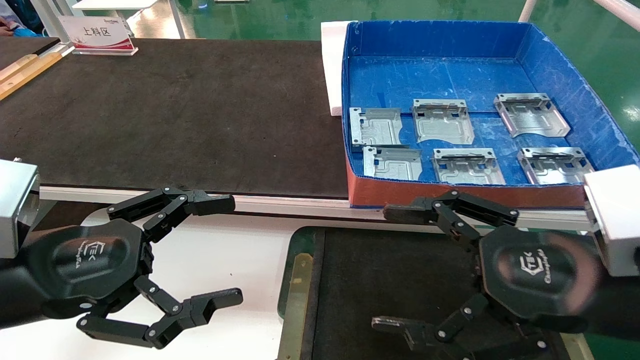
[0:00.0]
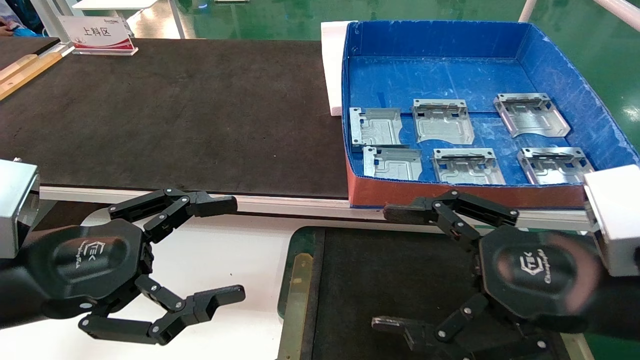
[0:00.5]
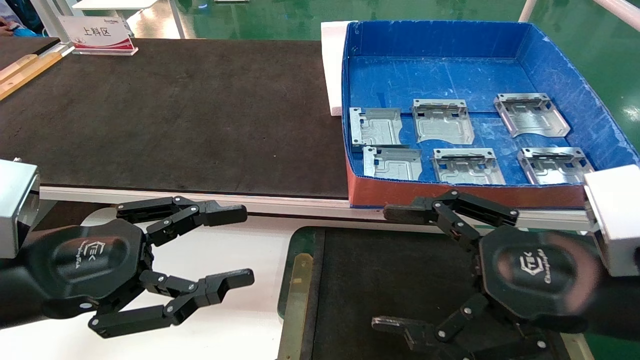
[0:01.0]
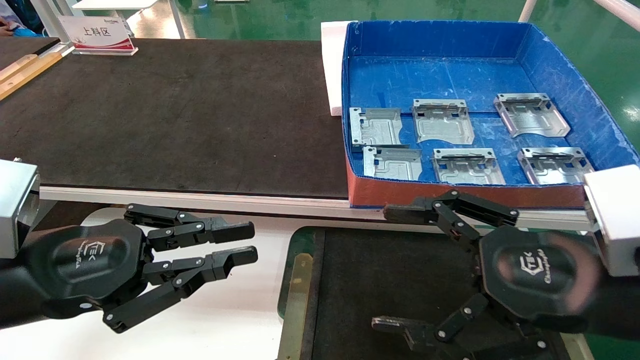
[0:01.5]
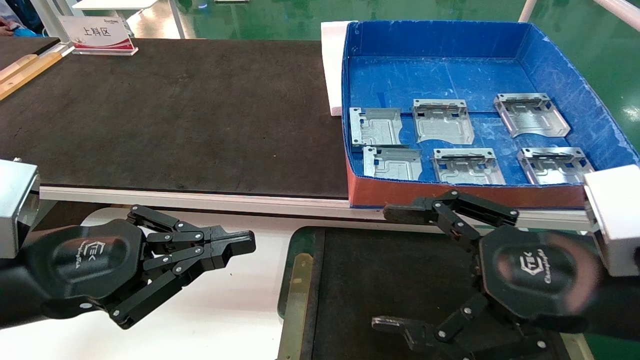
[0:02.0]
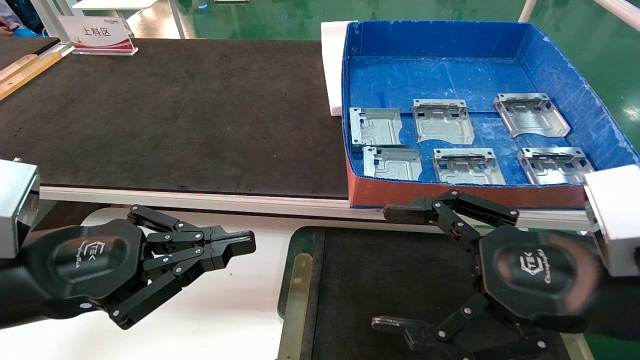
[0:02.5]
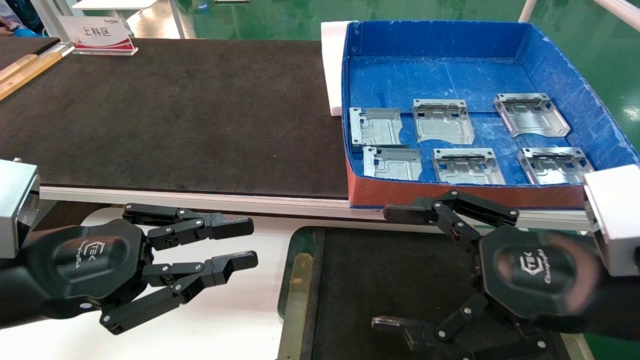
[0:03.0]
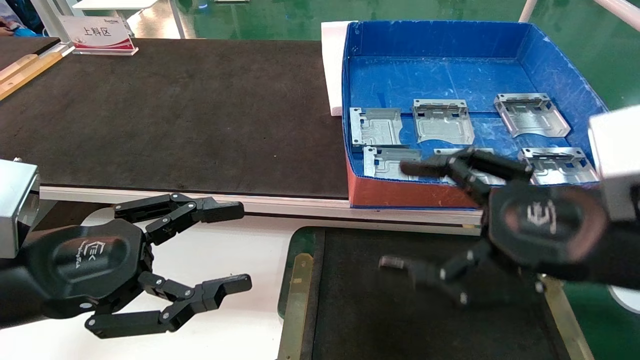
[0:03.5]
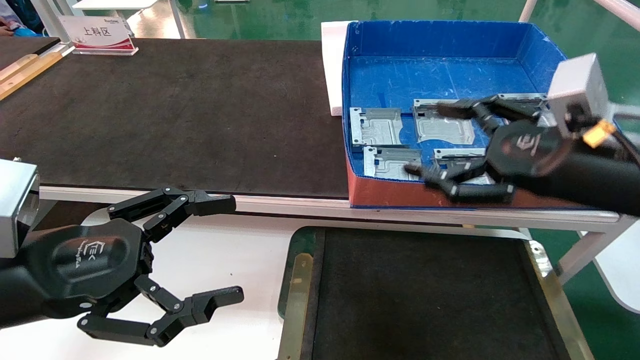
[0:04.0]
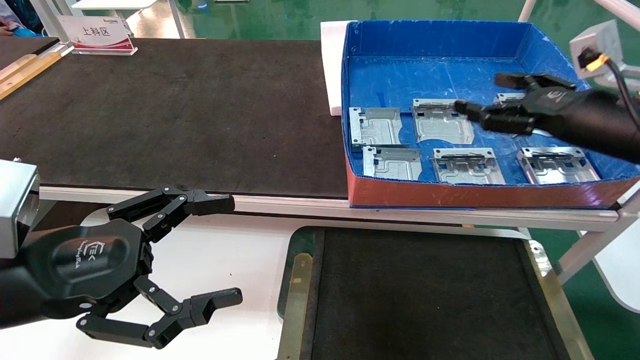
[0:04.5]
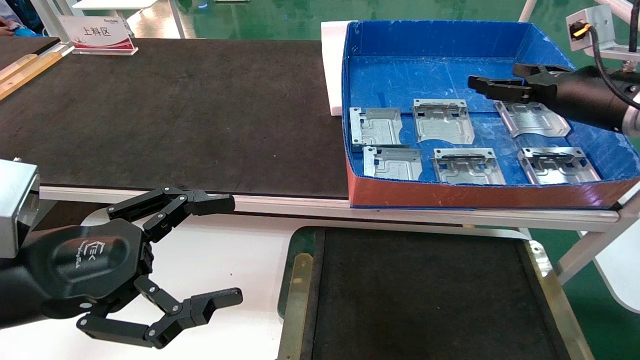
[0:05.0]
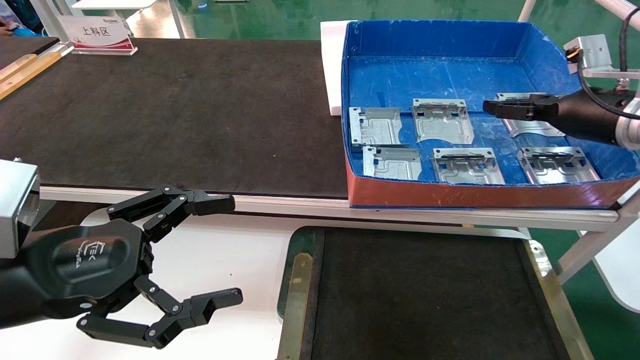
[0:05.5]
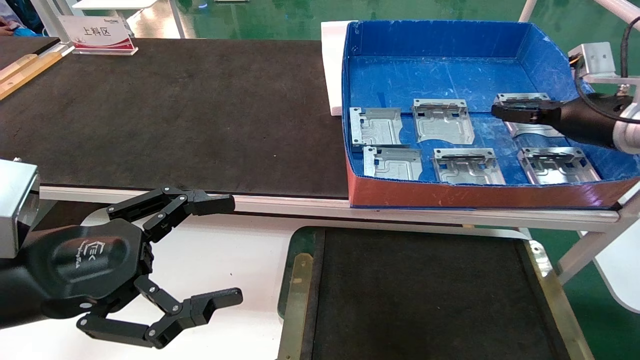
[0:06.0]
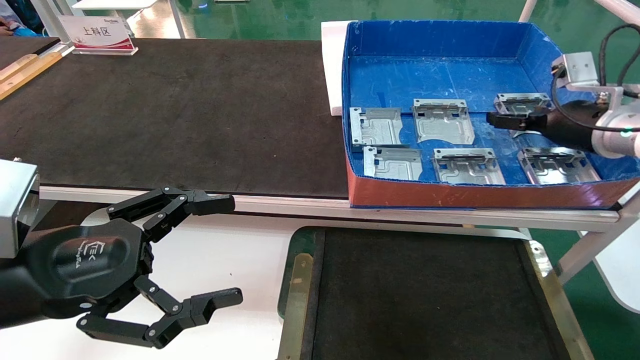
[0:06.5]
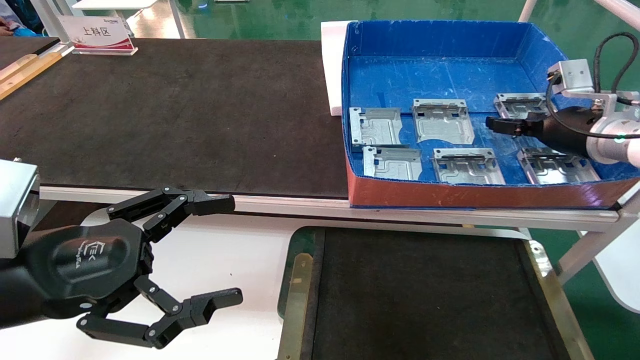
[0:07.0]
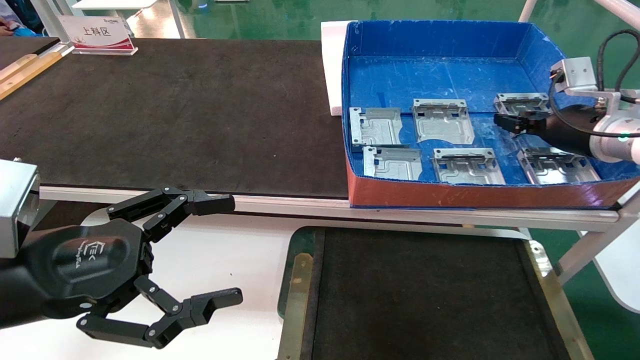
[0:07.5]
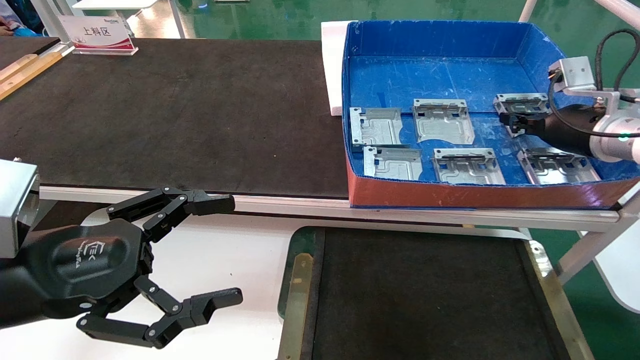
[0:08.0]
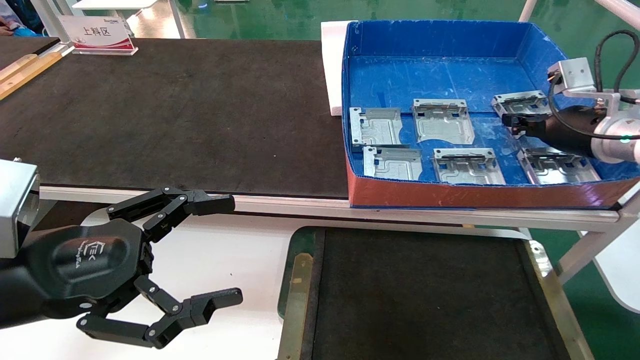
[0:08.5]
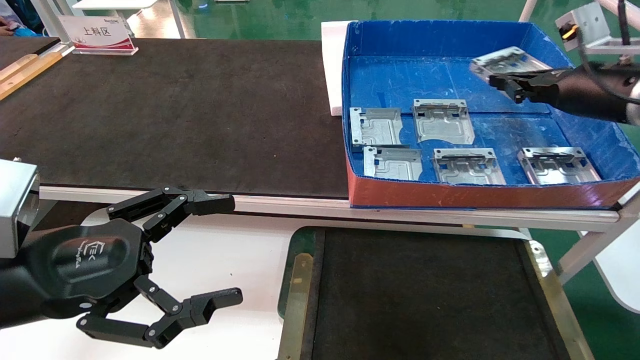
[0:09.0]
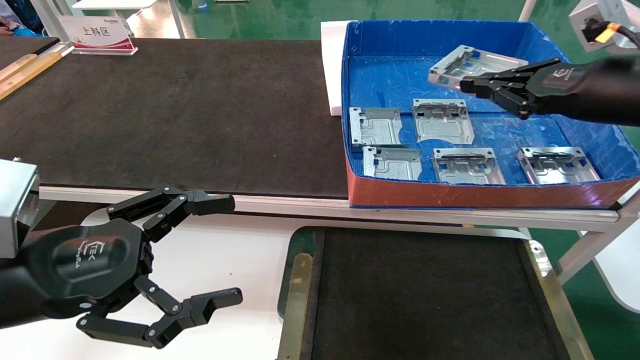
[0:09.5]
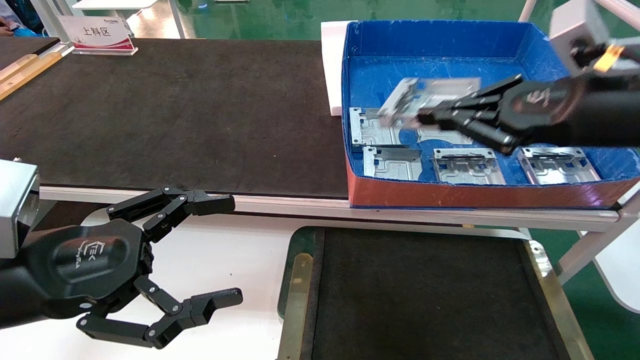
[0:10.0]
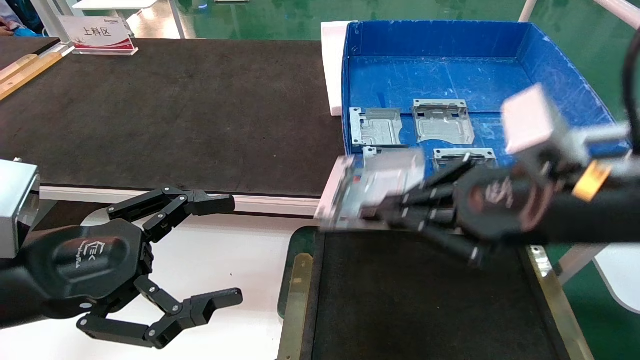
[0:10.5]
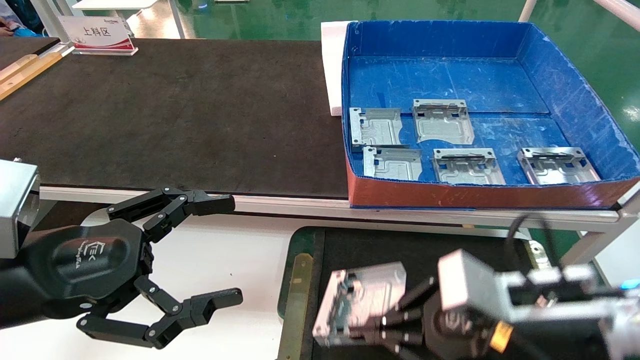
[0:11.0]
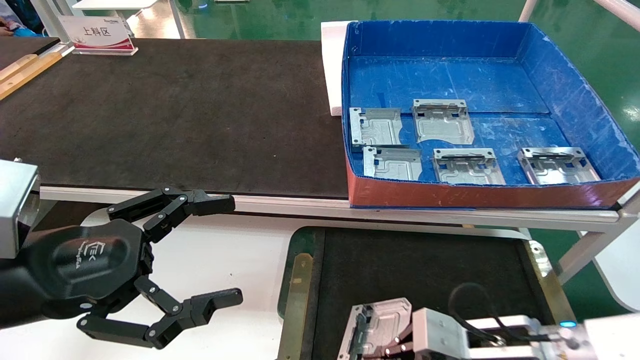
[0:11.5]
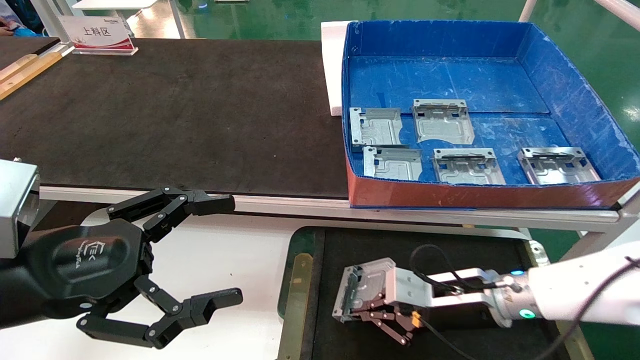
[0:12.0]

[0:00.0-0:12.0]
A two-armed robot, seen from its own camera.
Task of the whole recording: pick up parts and place them into a black container.
Step, 0:03.5 to 0:08.0: Pick up the hard drive bracket from the feeding area.
0:00.0 to 0:02.0: The left gripper closes up.
0:02.0 to 0:04.0: The left gripper opens up. The right gripper is displaced forward and upward by roughly 10 cm.
0:04.0 to 0:06.0: The right gripper goes about 20 cm forward and to the right.
0:06.0 to 0:08.0: The right gripper closes its fingers.
0:08.0 to 0:10.0: The right gripper is displaced backward and to the left by about 20 cm.
0:10.0 to 0:12.0: The right gripper moves downward, roughly 25 cm.

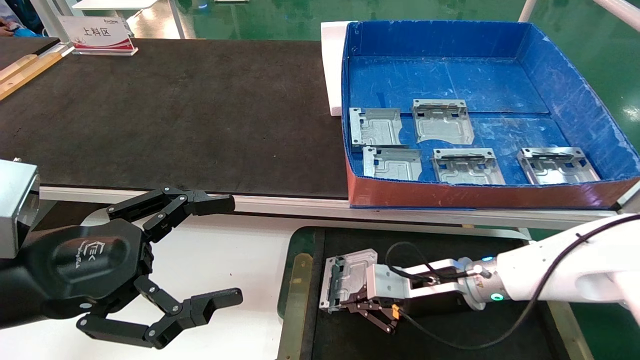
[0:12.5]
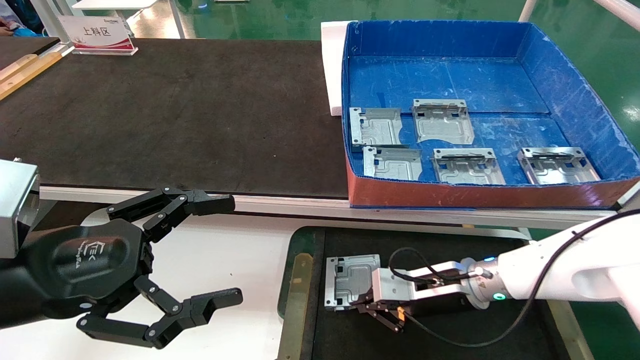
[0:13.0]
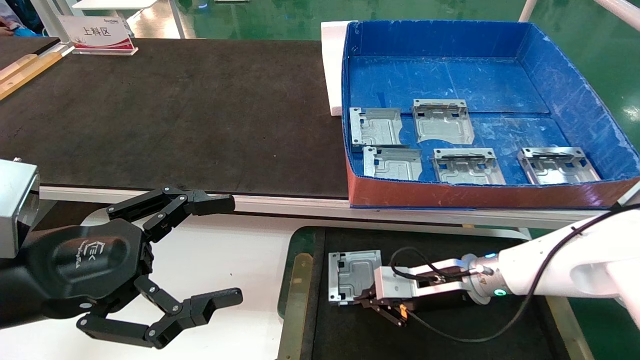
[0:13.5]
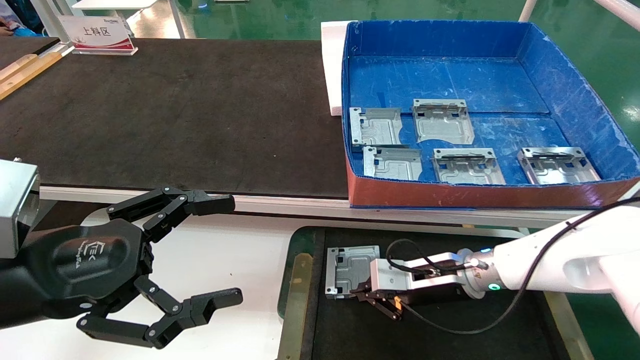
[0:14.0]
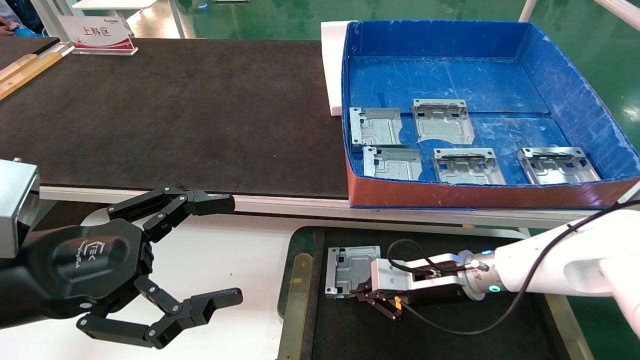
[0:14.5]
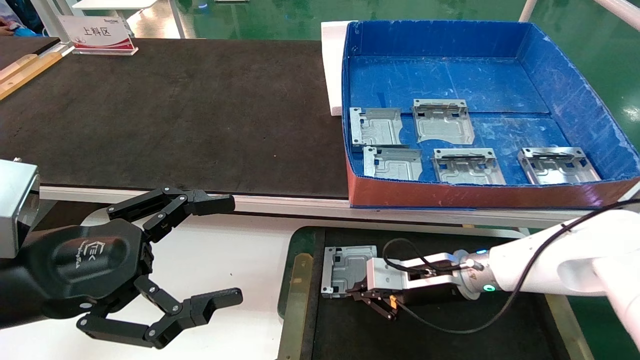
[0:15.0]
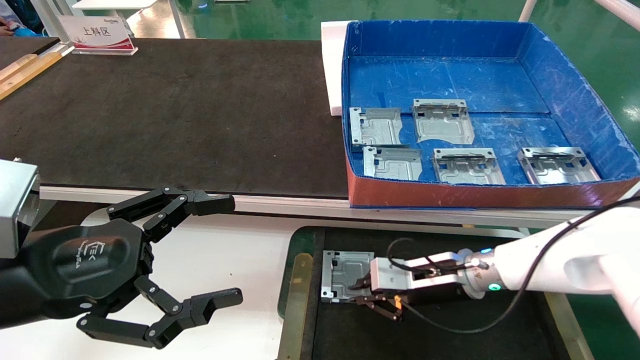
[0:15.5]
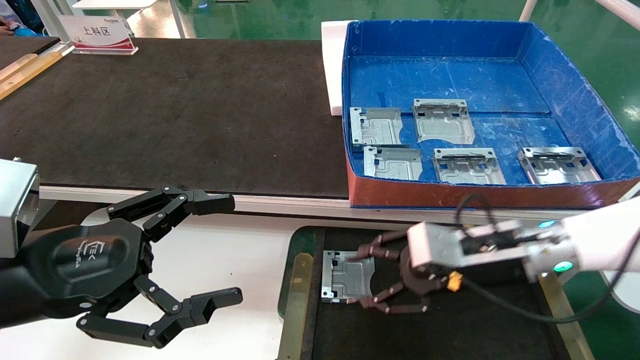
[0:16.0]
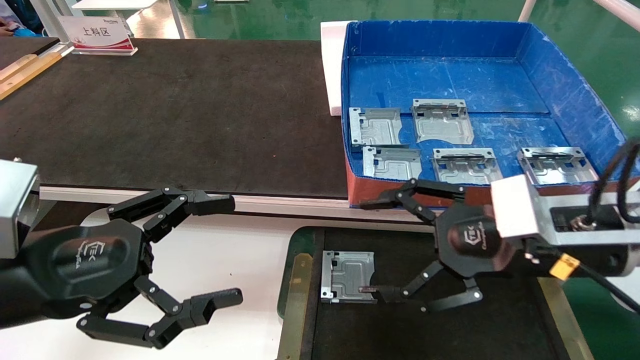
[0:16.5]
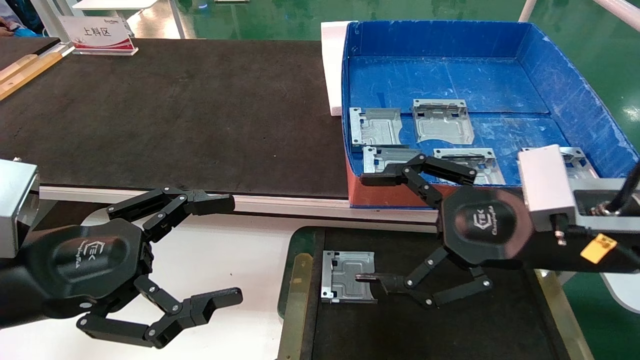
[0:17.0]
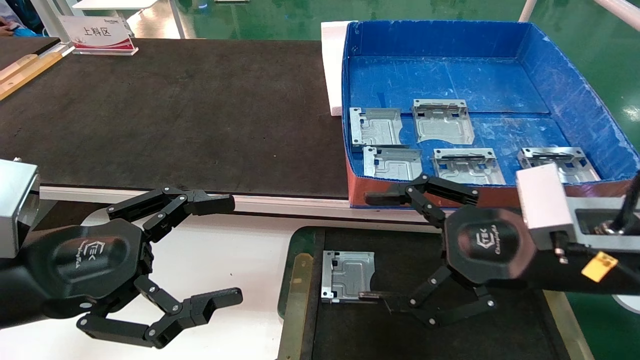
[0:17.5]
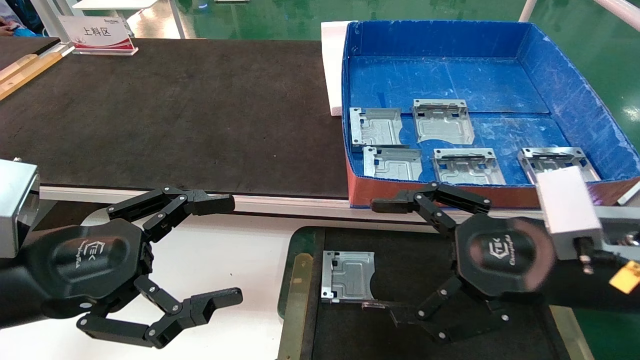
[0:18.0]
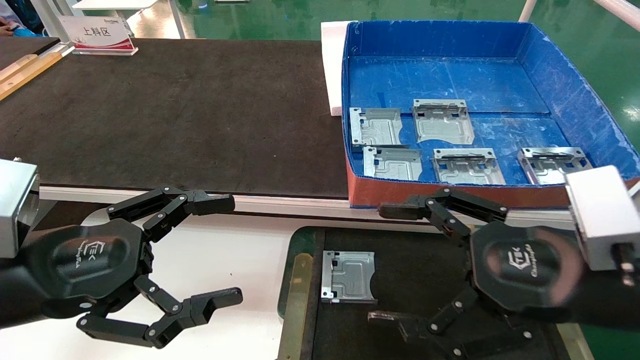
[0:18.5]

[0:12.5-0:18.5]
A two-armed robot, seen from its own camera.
Task of the whole recording: pick up parts and place them into a black container.
Step, 0:12.5 to 0:15.5: Place the hard drive bracket into the box.
0:12.5 to 0:14.5: There are only small adjustments of the grippers.
0:14.5 to 0:16.5: The right gripper goes roughly 20 cm upward and backward, and opens its fingers.
0:16.5 to 0:18.5: The right gripper travels backward by roughly 5 cm.
